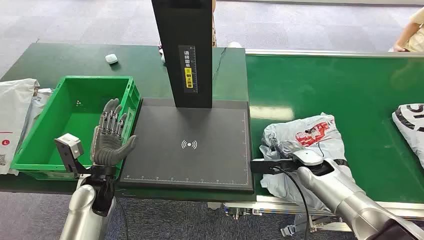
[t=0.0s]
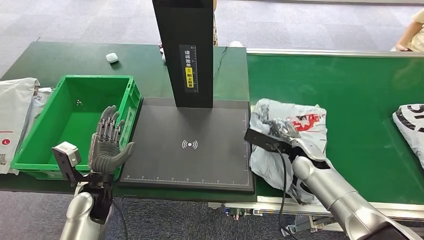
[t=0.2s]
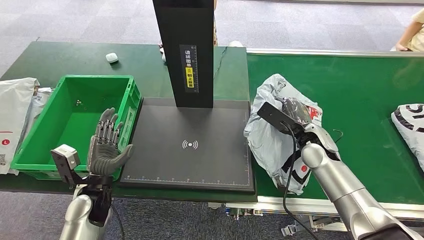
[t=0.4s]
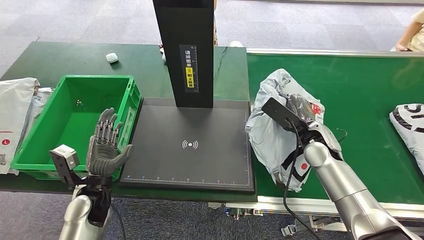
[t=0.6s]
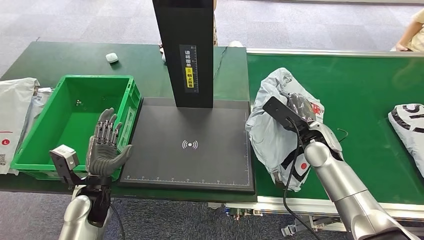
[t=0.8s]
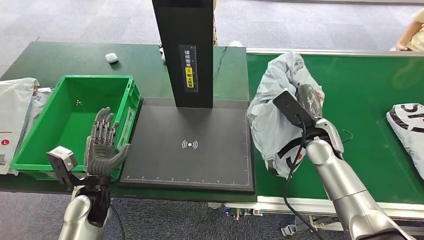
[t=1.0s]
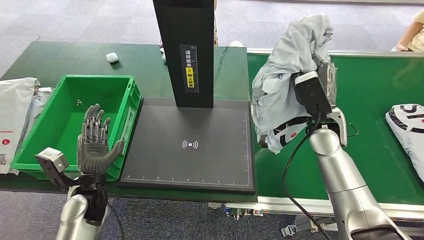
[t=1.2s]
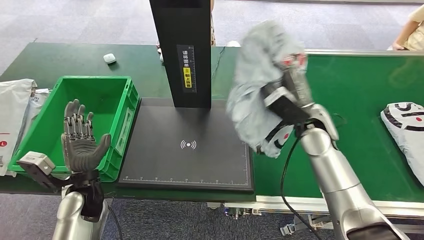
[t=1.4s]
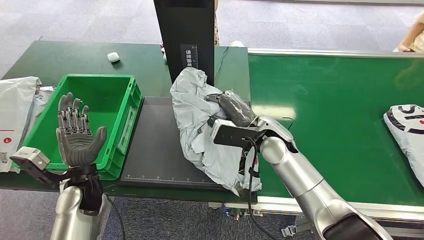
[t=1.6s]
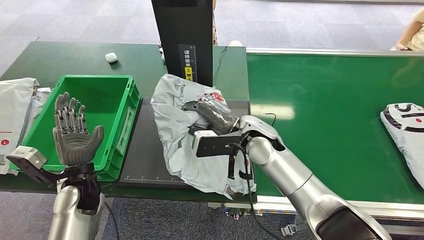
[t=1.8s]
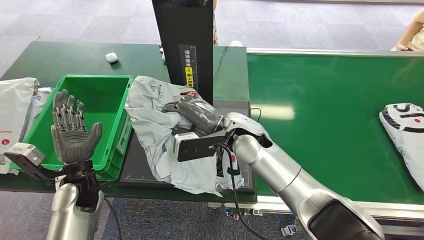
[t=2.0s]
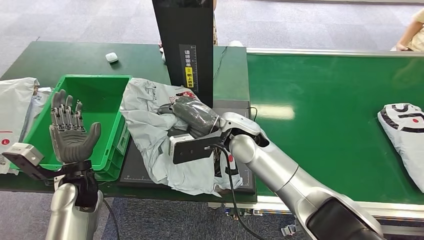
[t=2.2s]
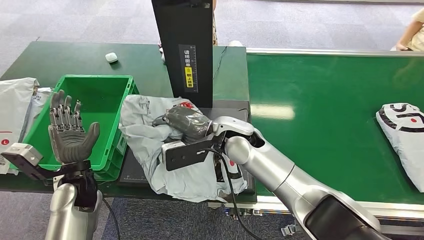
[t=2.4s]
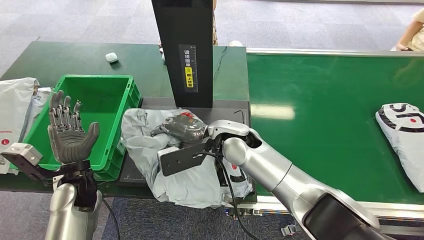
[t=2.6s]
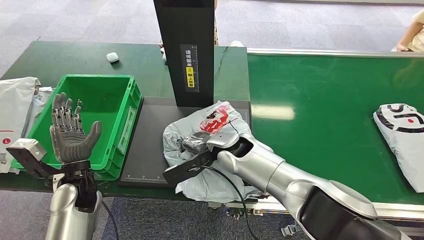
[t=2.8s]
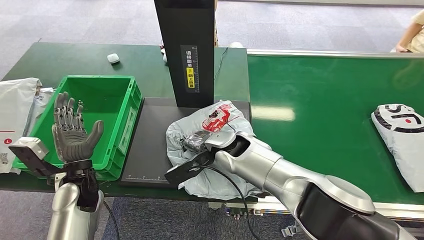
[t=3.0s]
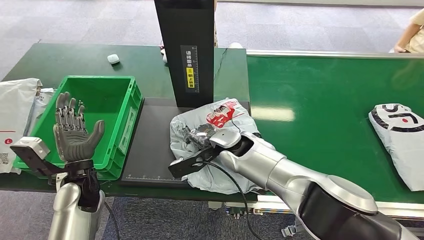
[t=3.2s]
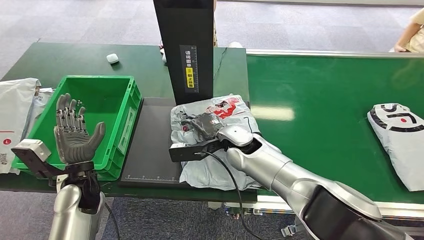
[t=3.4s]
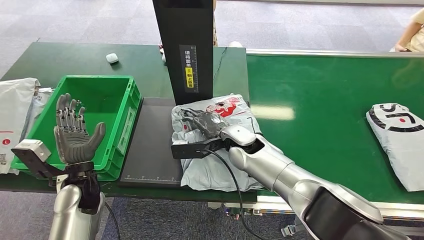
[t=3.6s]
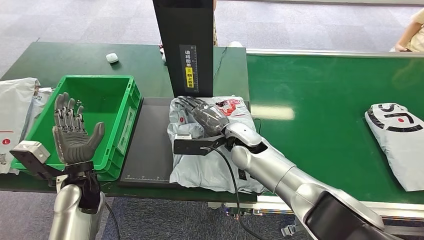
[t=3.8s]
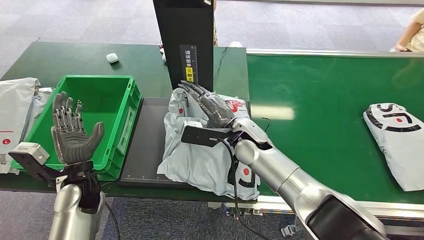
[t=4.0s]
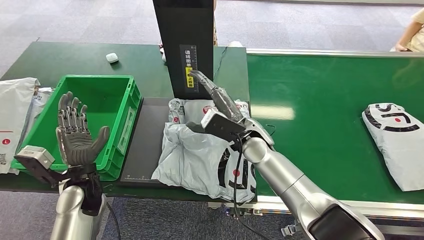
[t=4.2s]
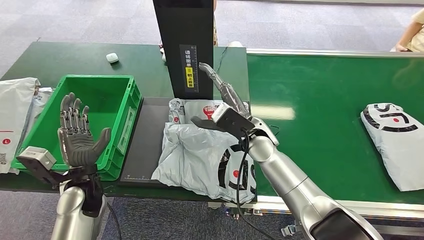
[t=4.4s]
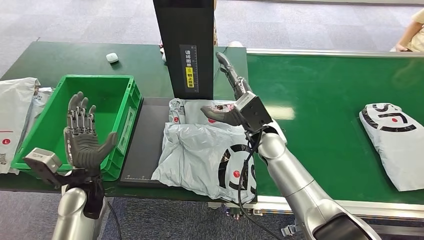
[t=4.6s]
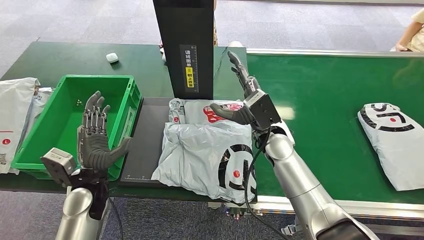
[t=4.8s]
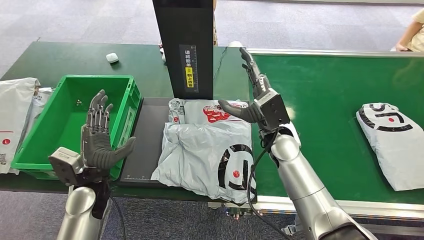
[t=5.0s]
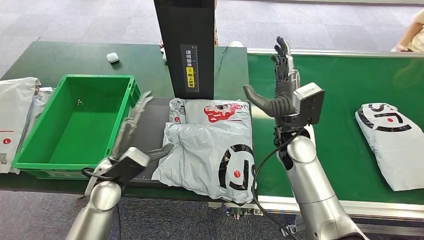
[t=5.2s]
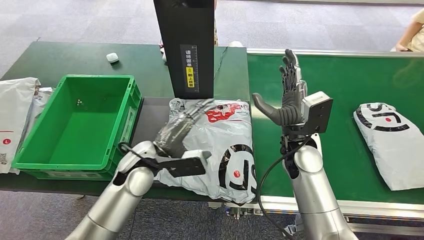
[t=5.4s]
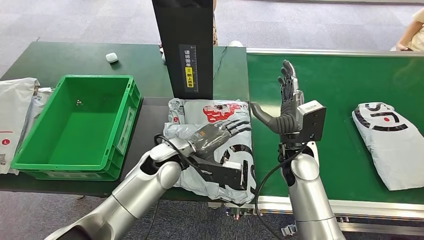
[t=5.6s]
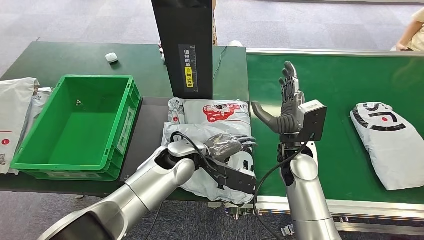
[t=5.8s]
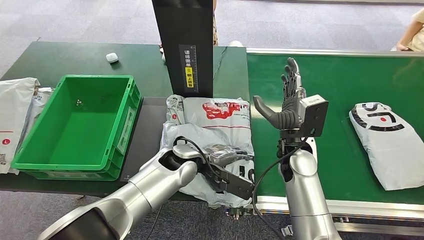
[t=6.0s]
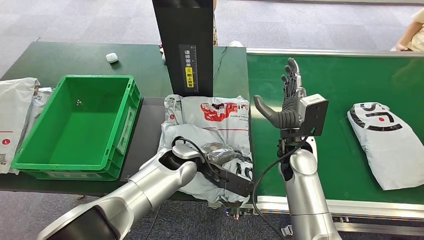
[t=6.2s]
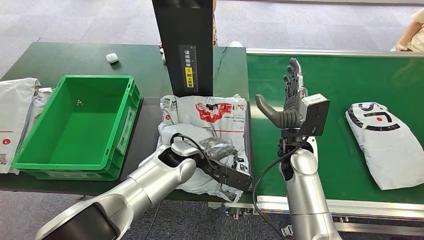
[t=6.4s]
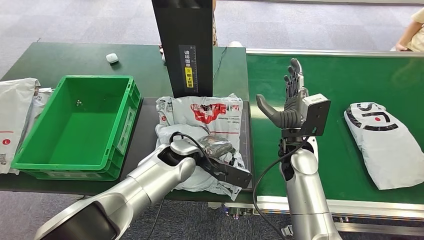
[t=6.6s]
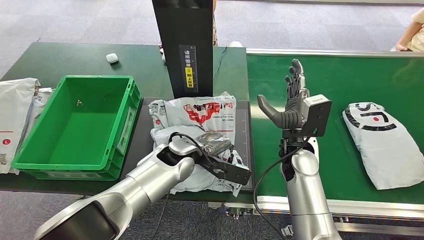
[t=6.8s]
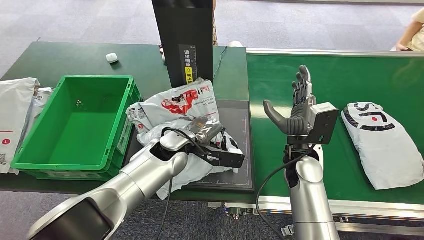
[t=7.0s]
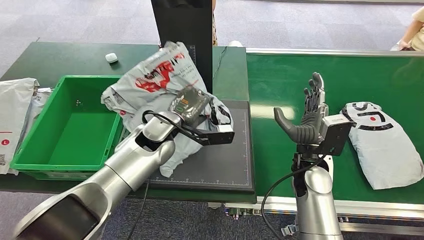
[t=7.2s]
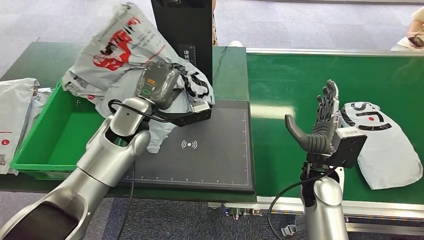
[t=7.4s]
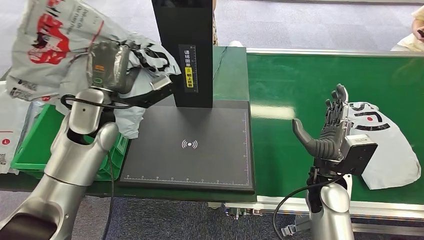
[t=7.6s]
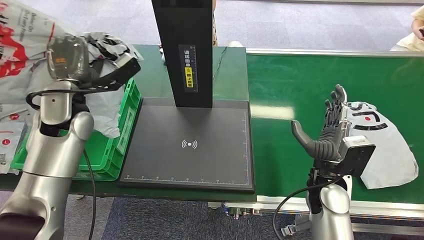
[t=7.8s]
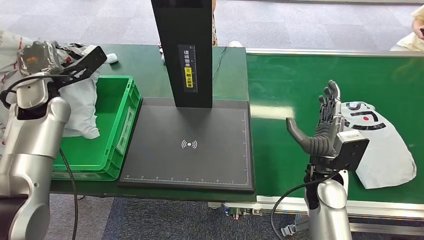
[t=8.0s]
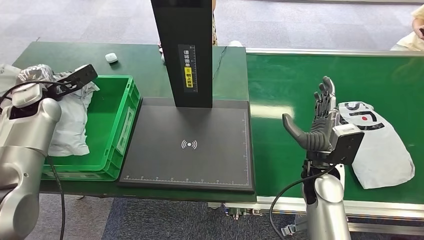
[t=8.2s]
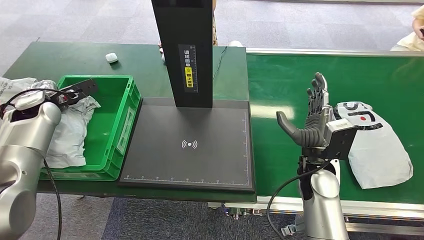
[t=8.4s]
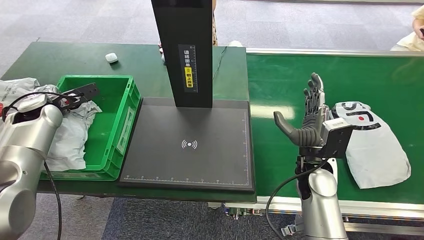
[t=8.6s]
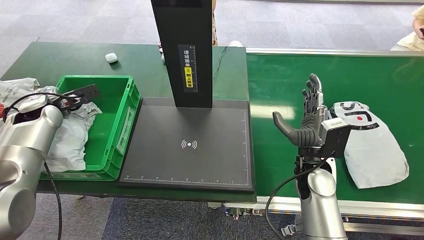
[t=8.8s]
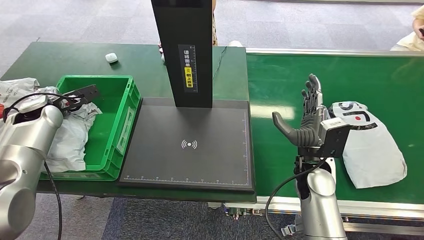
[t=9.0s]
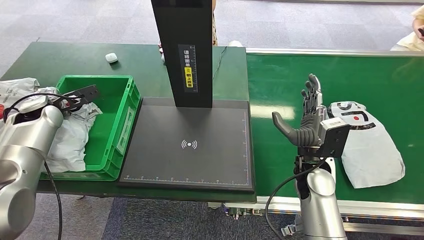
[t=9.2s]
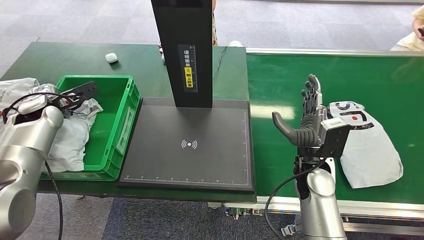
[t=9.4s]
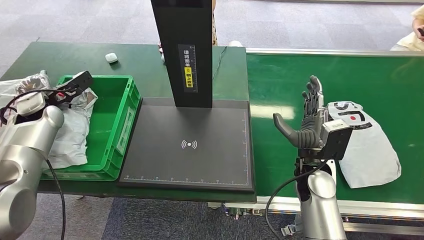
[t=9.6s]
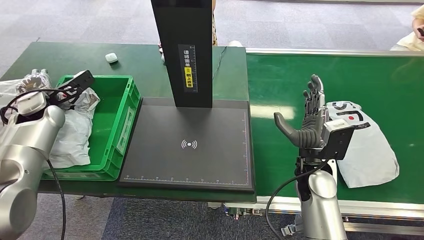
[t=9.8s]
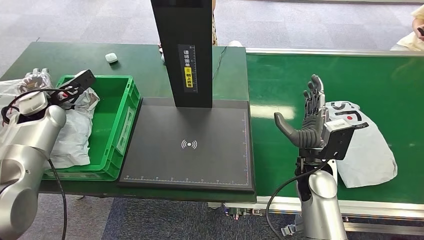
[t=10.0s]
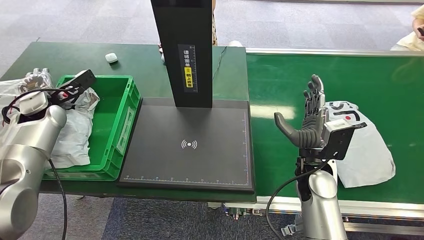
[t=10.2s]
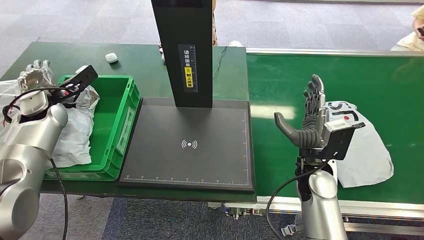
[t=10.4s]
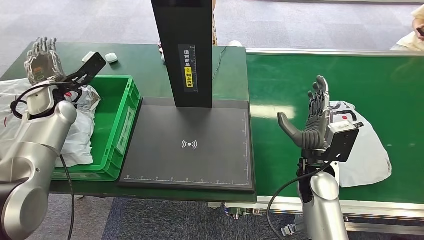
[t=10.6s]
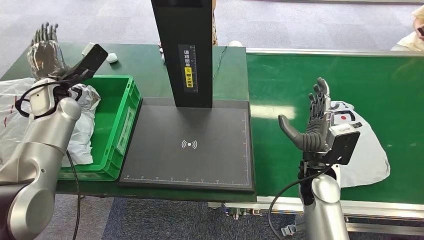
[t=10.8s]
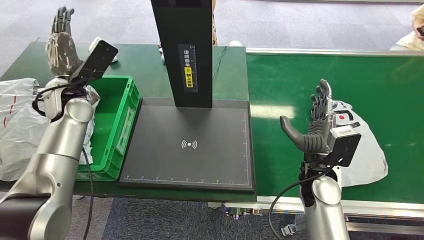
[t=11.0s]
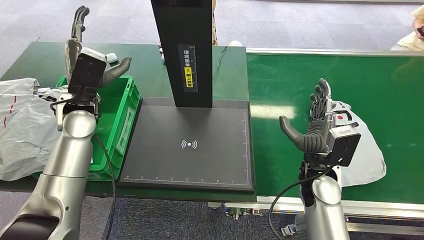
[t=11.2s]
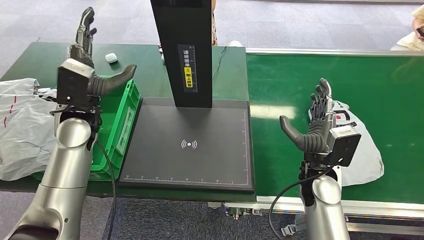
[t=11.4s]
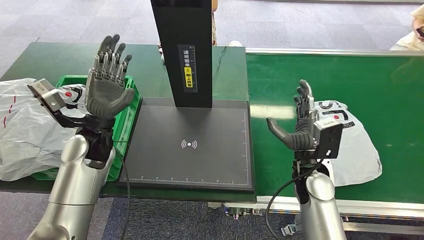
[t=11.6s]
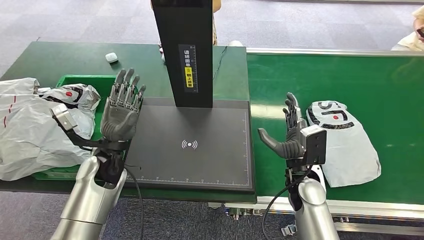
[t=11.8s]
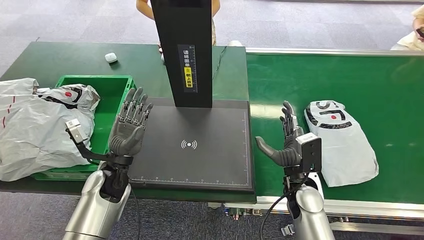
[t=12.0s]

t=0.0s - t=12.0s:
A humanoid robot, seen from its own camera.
Step, t=0.0s - t=1.8s: Pick up the package from the conveyor belt.
Step, t=2.2s - t=4.0s: Place the package onto the inbound machine.
Step, t=4.2s - t=8.2s: Pick up the package from the inbound machine.
Step, t=8.4s - t=12.0s: Place the package into the parcel locker.
